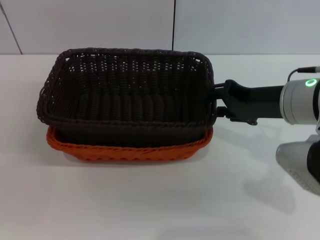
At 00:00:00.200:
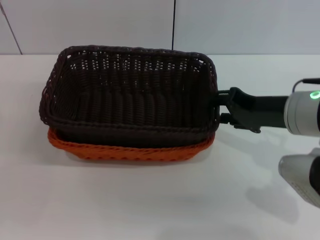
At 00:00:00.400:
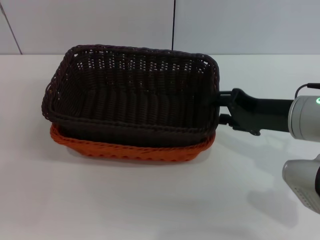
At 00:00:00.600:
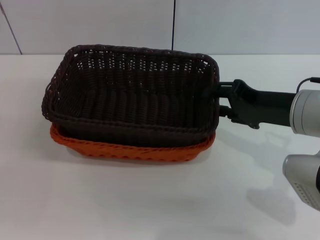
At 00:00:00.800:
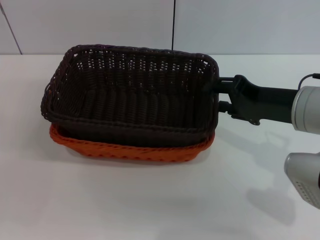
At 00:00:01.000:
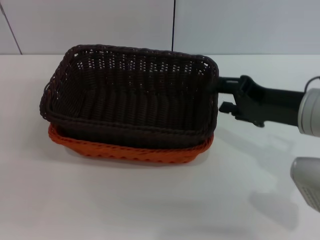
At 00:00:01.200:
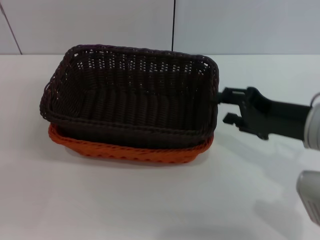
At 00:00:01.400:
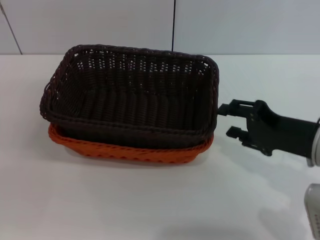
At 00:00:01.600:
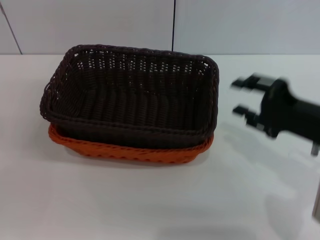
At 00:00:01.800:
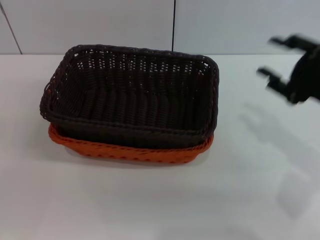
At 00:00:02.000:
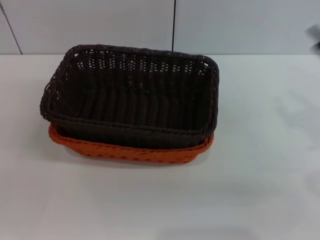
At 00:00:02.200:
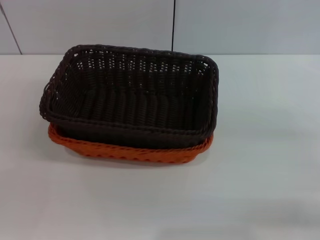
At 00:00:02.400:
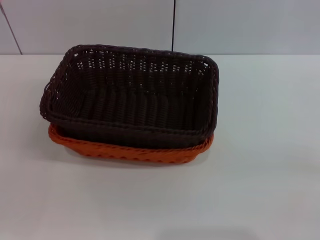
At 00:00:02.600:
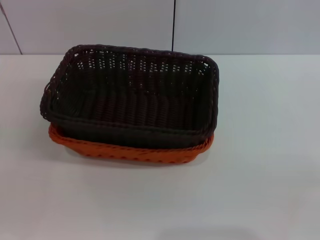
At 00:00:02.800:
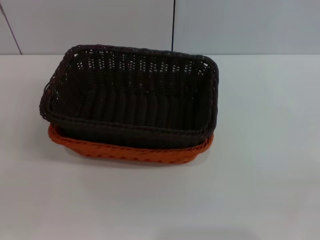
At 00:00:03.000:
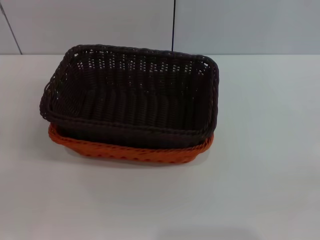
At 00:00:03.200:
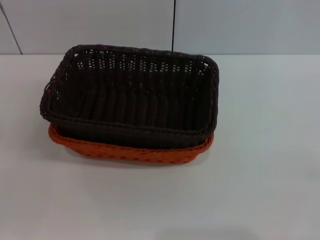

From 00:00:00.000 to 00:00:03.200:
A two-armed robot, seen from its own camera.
From 00:00:00.000 to 00:00:01.600: The right gripper heads backward, covering some 5 cm.
From 00:00:01.600 to 00:00:03.200: The right gripper goes roughly 20 cm to the right and downward.
